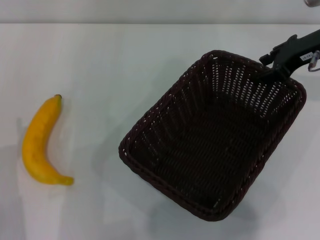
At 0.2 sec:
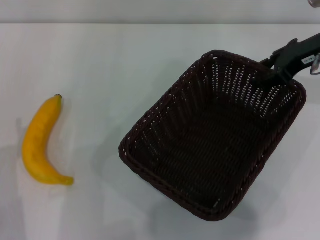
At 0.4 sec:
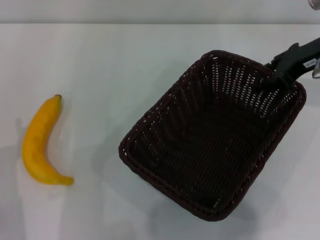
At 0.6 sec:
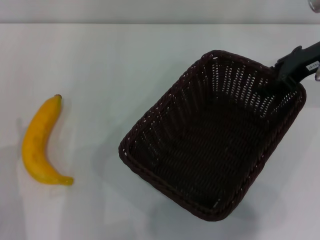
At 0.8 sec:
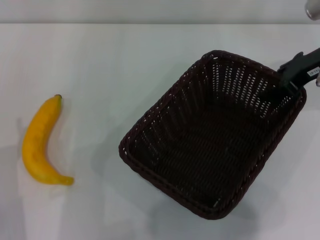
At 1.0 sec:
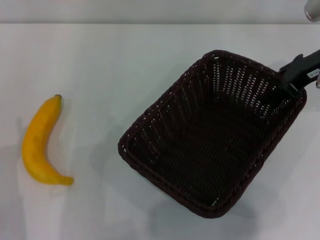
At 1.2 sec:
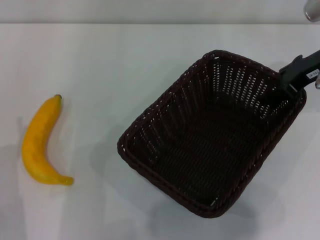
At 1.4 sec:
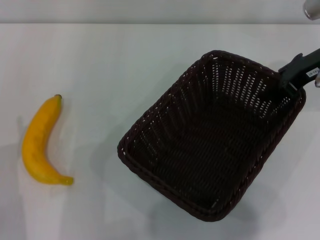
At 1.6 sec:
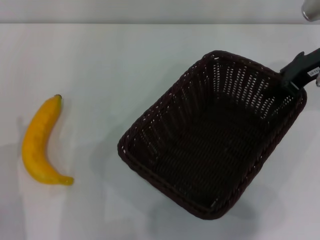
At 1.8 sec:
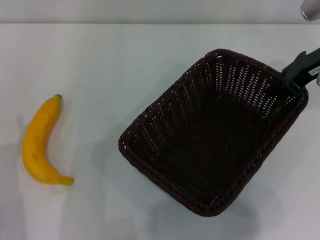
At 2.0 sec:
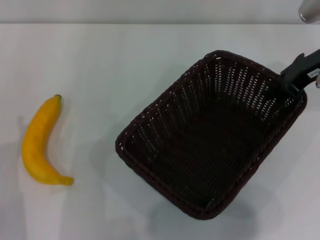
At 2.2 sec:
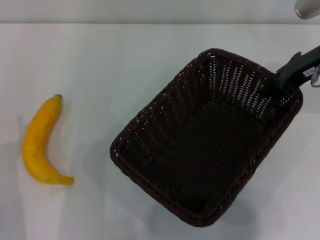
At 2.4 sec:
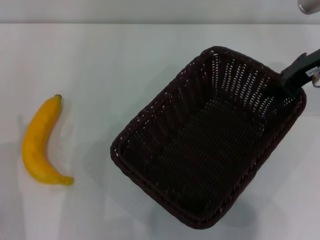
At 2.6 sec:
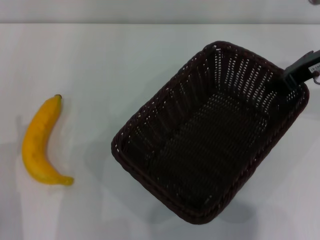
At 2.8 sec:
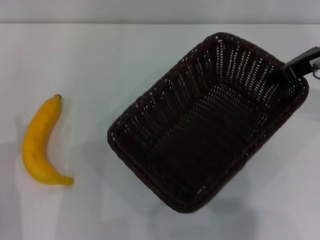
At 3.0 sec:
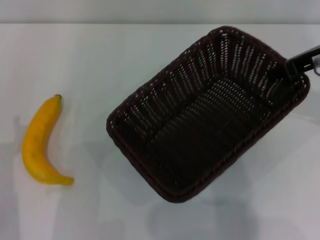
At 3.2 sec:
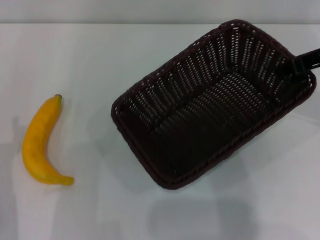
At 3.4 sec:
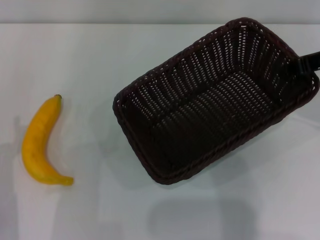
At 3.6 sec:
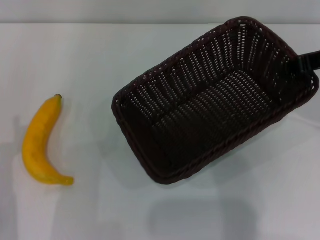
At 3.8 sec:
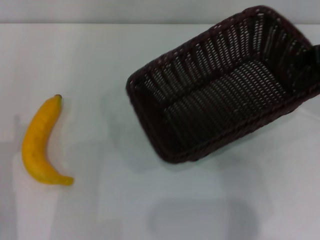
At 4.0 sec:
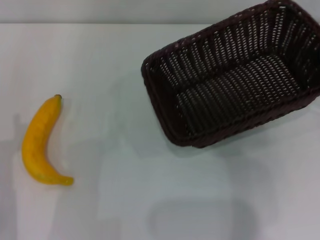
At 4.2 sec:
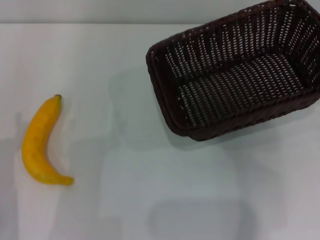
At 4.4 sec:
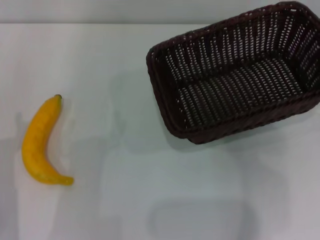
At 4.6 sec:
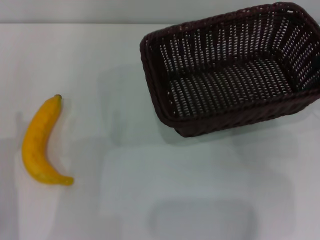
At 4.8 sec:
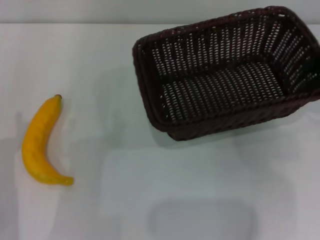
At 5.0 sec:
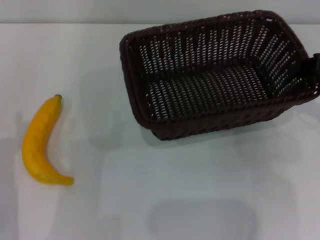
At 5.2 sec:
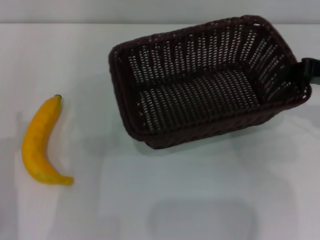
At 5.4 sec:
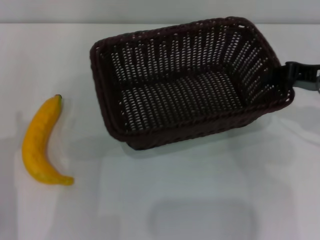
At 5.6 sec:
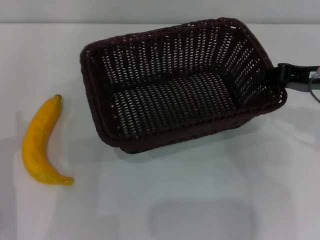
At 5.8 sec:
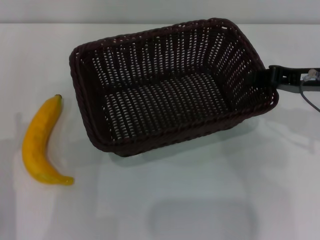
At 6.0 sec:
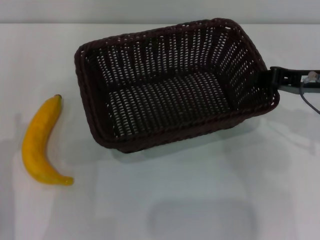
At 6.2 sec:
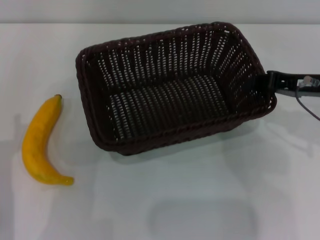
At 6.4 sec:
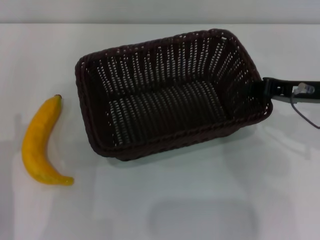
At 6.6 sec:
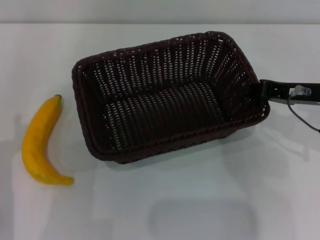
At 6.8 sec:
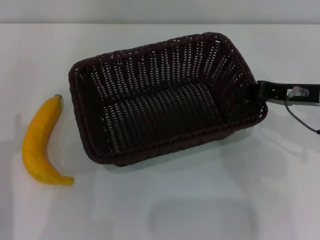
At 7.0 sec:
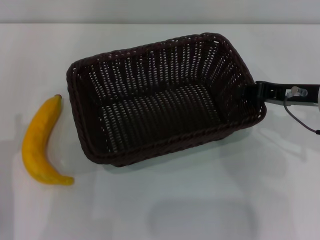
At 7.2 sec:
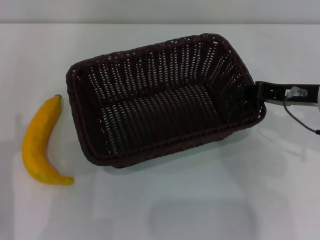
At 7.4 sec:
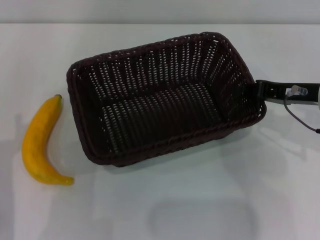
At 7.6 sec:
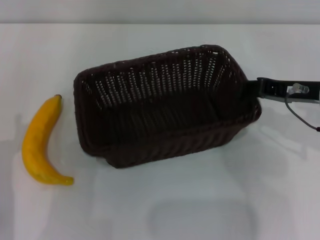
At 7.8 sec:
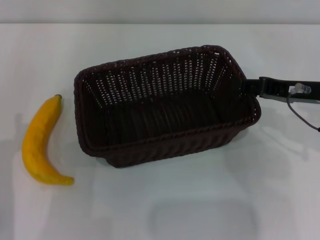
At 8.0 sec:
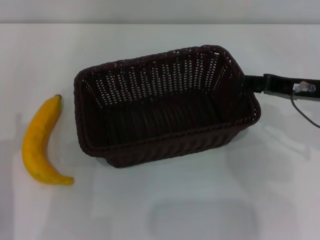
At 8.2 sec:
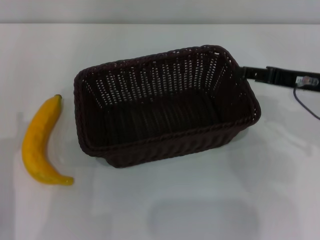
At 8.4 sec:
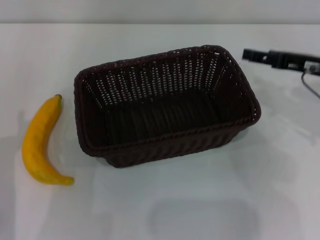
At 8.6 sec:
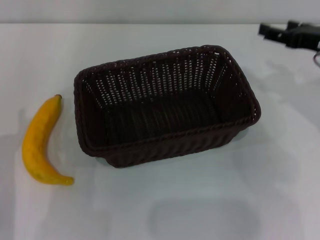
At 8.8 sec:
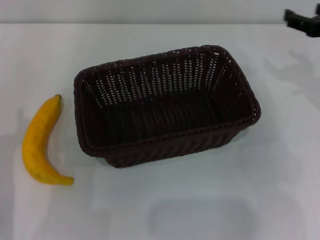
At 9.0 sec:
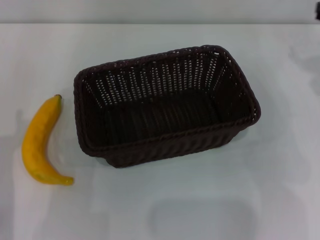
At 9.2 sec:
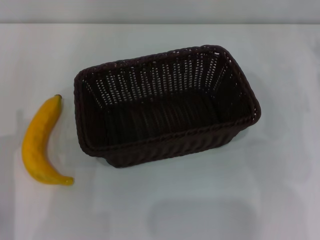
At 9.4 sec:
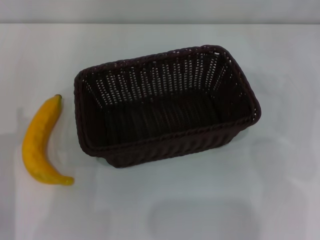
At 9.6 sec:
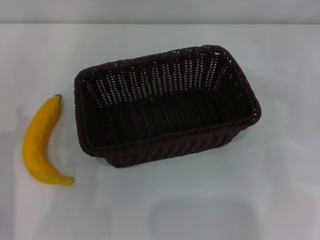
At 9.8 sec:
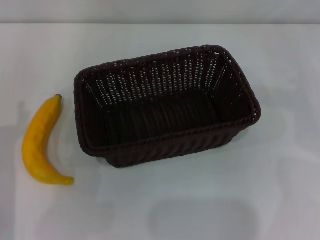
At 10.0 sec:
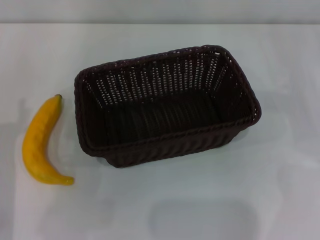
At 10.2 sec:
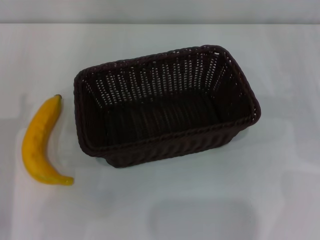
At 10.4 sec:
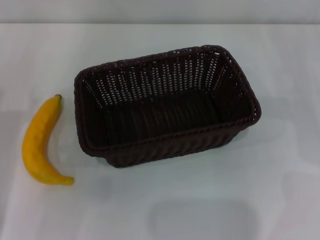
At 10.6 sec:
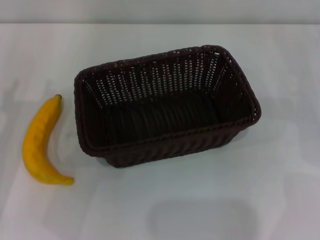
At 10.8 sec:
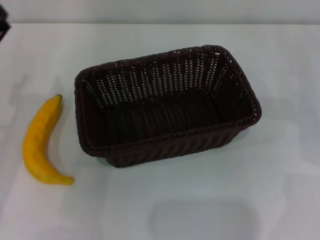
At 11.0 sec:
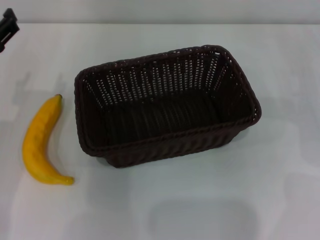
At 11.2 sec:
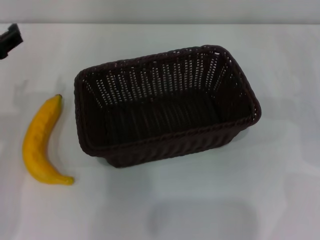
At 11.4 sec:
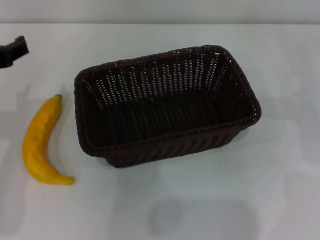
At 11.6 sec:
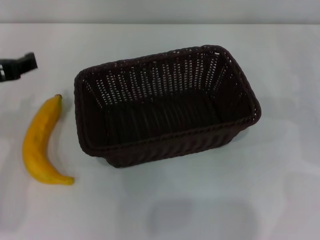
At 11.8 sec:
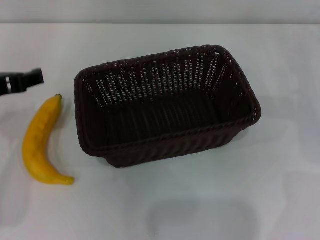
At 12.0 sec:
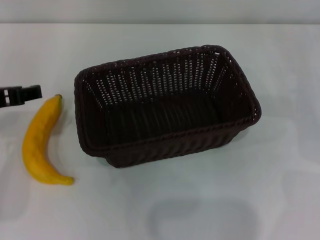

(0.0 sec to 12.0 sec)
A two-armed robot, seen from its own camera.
Step, 0.0 sec - 3.0 sec: Pick up the dark basket with the right gripper.
Step, 3.2 sec - 7.8 sec: Place the dark basket in the center of view with the right gripper.
0.0 sec - 1.6 sec: The grippers move only a little.
1.6 sec - 3.0 sec: The right gripper moves some 5 cm, and closes.
3.0 sec - 4.4 sec: The right gripper travels to the right by approximately 10 cm.
4.4 sec - 6.0 sec: The right gripper shifts about 10 cm to the left and downward.
6.0 sec - 7.6 sec: The grippers move only a little.
7.6 sec - 9.0 sec: The right gripper travels to the right by approximately 10 cm, and opens its fingers.
10.4 sec - 12.0 sec: The left gripper is displaced upward by about 10 cm.

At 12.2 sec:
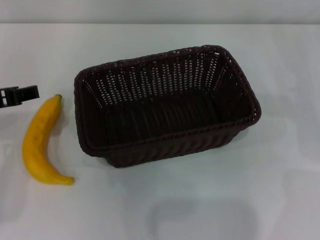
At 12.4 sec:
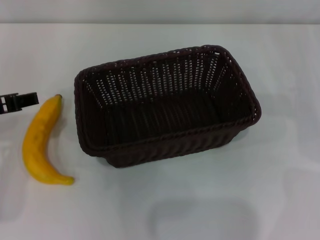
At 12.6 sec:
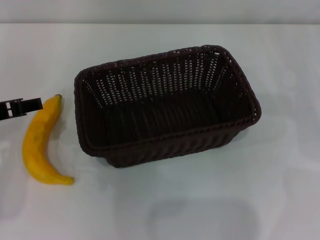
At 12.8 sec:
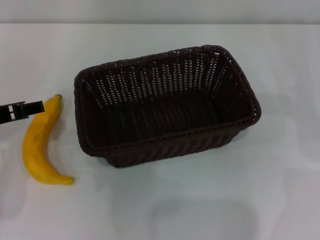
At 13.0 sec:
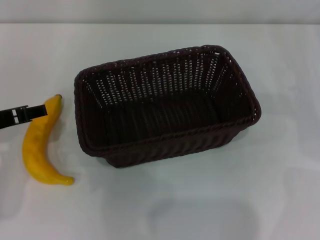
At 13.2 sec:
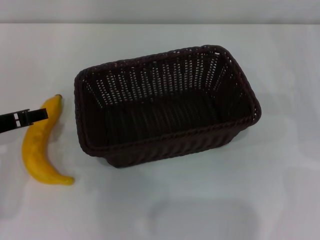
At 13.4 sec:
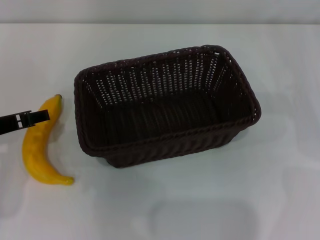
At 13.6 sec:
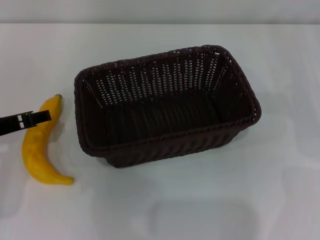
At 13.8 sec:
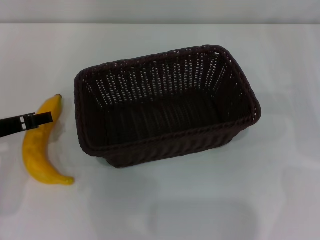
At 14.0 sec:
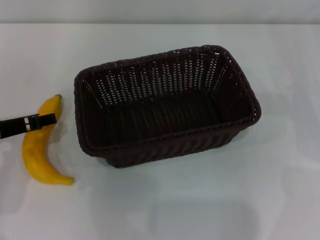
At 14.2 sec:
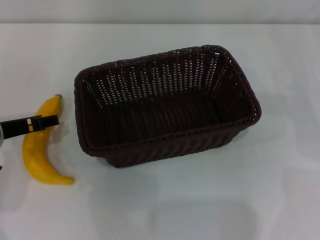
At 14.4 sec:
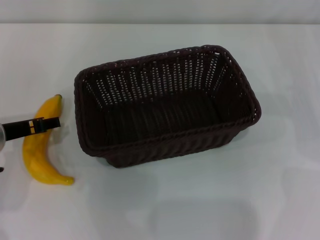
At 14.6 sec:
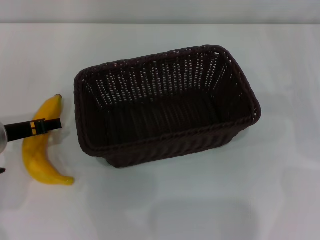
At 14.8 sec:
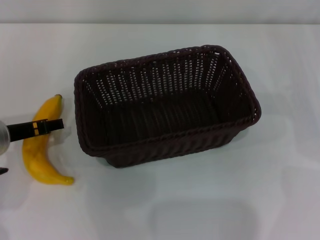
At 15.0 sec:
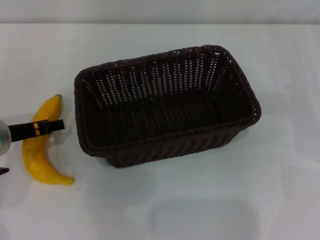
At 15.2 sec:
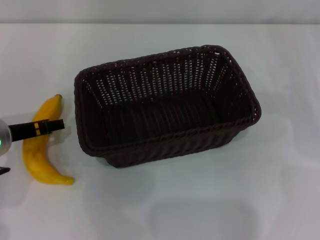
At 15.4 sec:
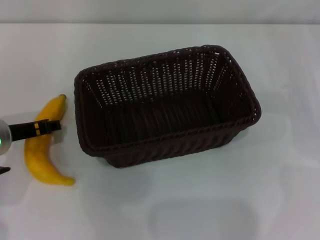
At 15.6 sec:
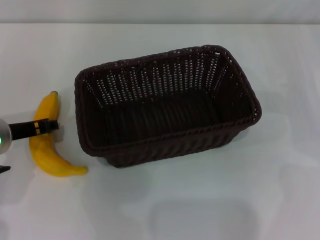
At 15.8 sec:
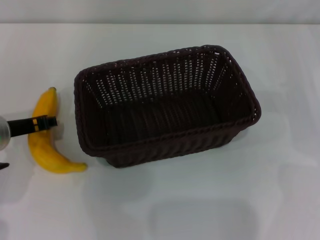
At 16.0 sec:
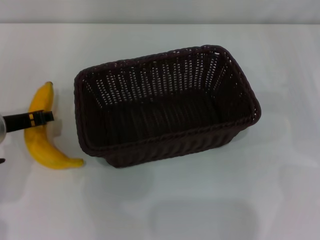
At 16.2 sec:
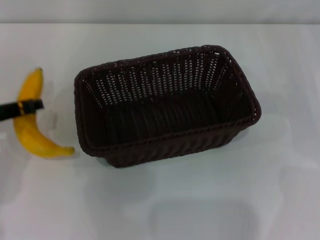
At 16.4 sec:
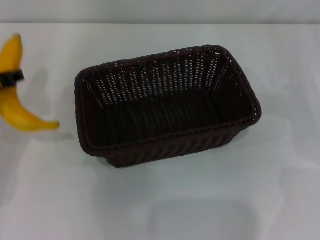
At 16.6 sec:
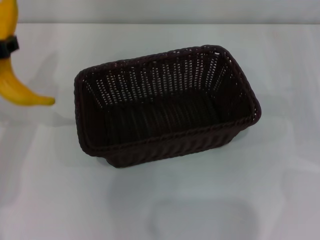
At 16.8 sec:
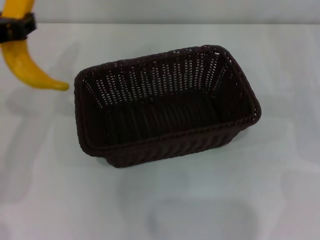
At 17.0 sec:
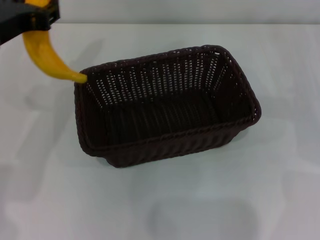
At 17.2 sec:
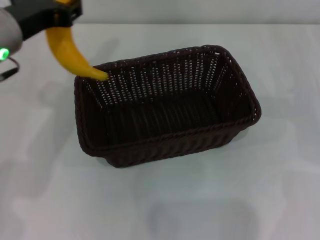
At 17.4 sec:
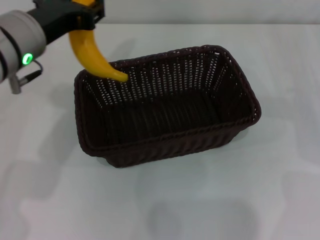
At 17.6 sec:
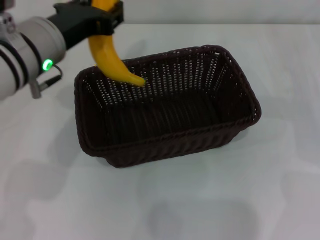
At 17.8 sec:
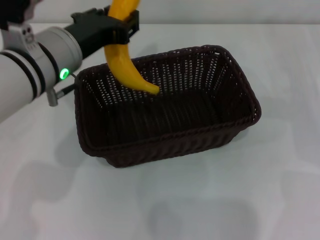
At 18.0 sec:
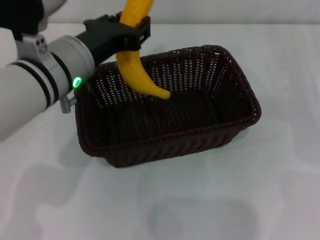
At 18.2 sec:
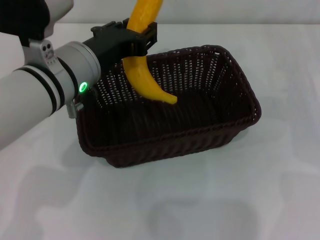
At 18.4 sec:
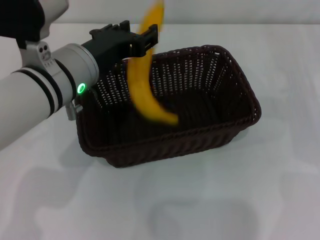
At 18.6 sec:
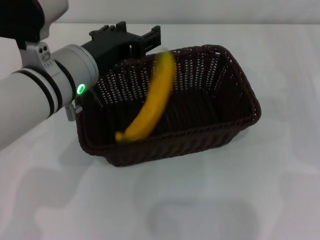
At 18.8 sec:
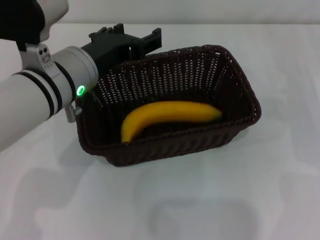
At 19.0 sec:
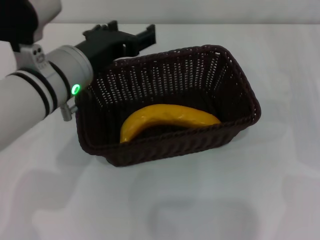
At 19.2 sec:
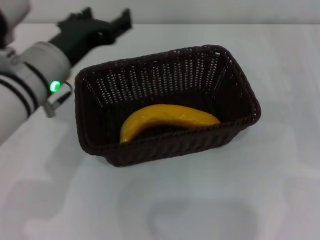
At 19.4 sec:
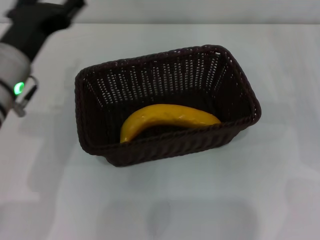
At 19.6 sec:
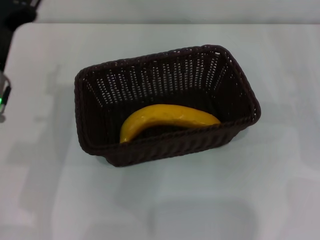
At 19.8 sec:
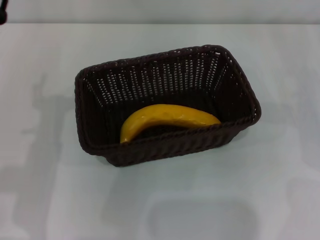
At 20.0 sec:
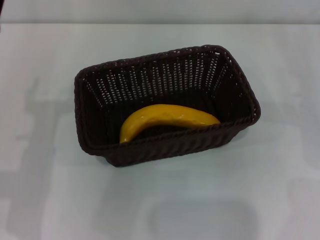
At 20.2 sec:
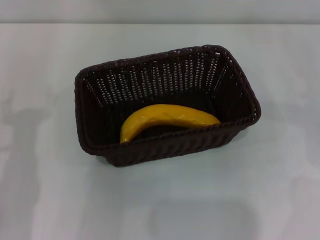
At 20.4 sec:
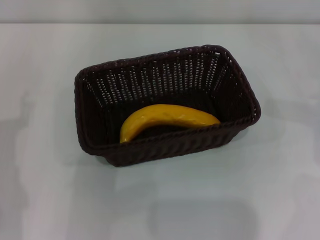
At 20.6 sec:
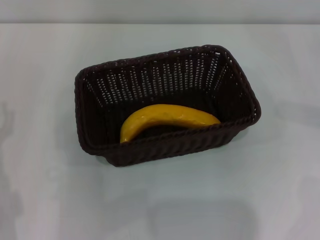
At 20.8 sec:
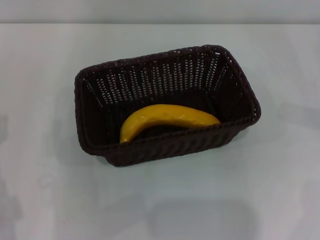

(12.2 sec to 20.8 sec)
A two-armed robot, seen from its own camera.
Step, 12.2 sec - 16.0 sec: Pick up the banana with the left gripper.
Step, 16.2 sec - 18.6 sec: Place the banana into the dark basket with the left gripper.
12.2 sec - 13.6 sec: The left gripper travels downward by about 5 cm.
13.6 sec - 15.0 sec: The grippers make only small movements.
15.0 sec - 16.6 sec: The left gripper goes some 10 cm upward, and closes.
16.6 sec - 18.0 sec: The left gripper goes approximately 15 cm to the right.
18.0 sec - 19.4 sec: The left gripper shifts about 5 cm to the left, and opens its fingers.
19.4 sec - 20.8 sec: The left gripper shifts roughly 15 cm backward, to the left and downward.
